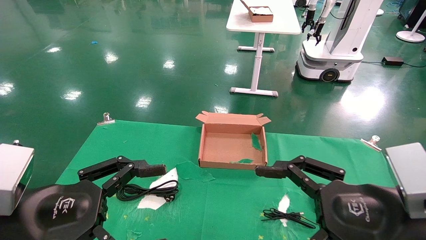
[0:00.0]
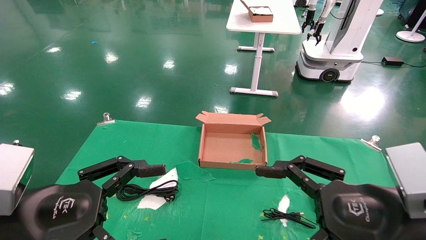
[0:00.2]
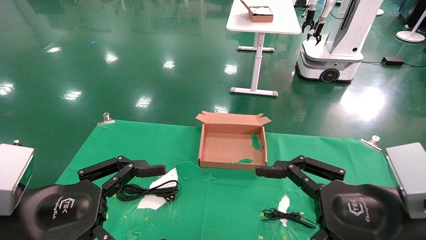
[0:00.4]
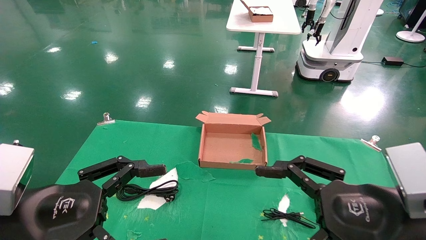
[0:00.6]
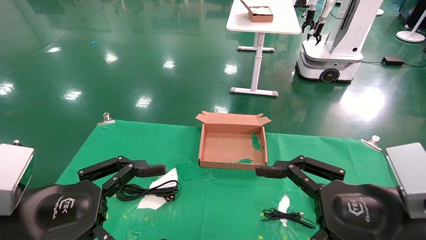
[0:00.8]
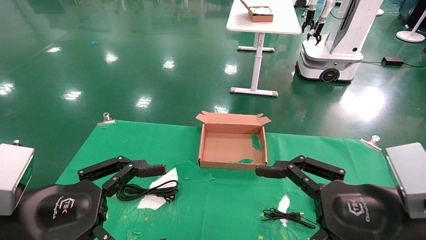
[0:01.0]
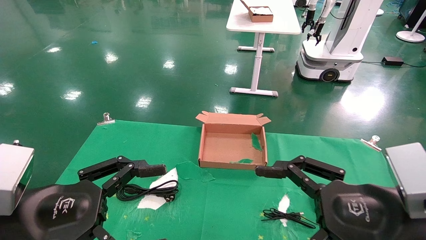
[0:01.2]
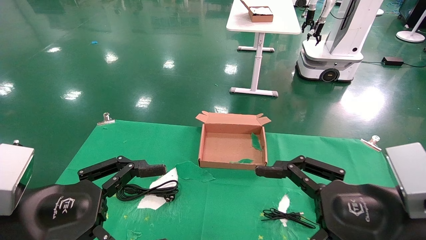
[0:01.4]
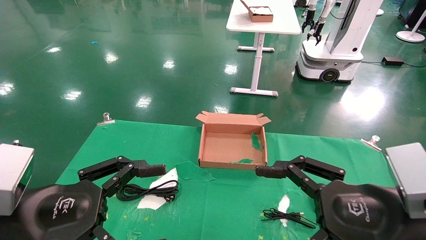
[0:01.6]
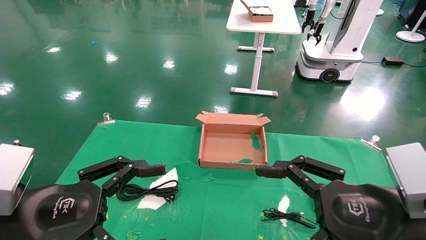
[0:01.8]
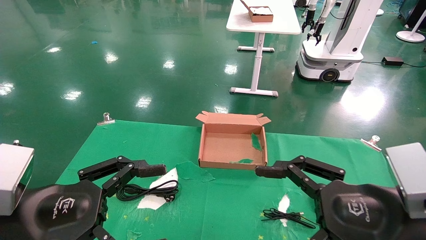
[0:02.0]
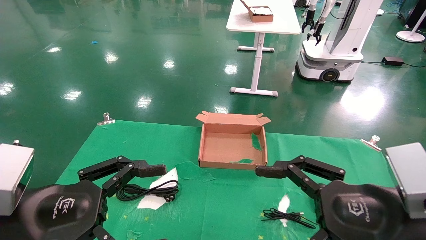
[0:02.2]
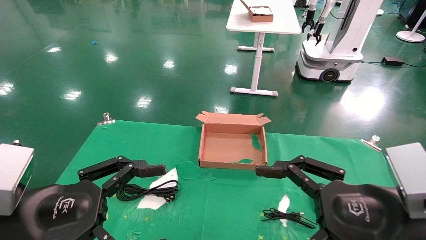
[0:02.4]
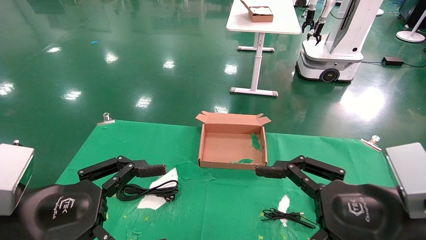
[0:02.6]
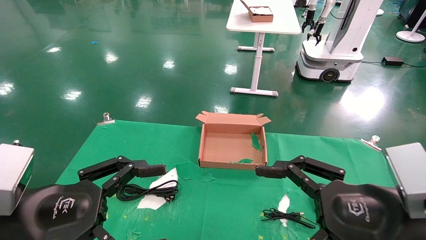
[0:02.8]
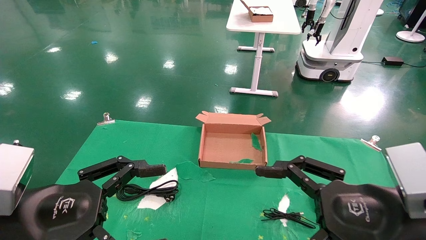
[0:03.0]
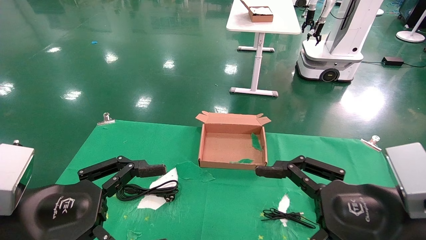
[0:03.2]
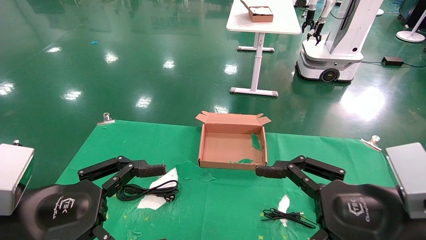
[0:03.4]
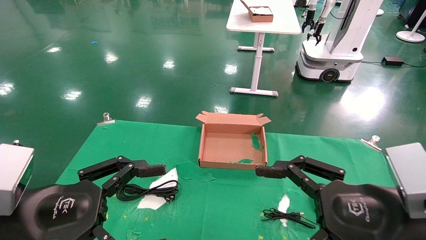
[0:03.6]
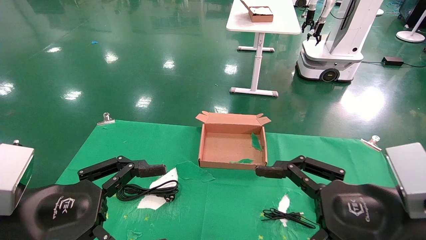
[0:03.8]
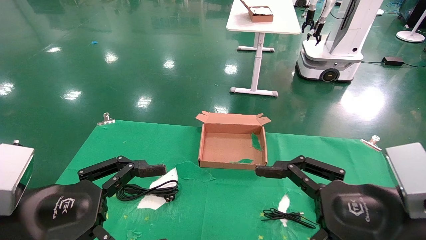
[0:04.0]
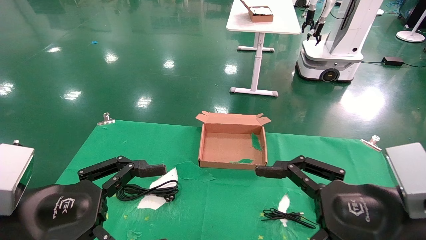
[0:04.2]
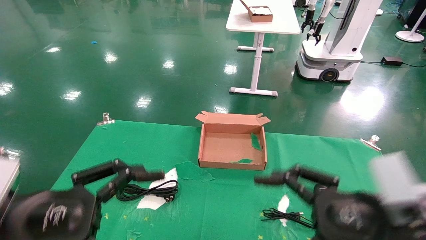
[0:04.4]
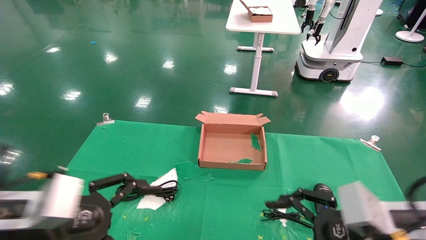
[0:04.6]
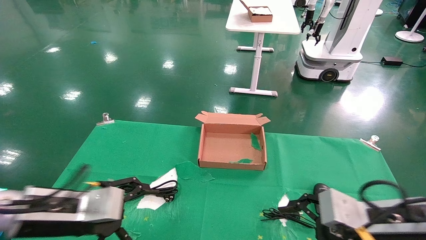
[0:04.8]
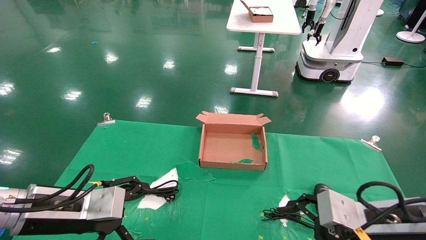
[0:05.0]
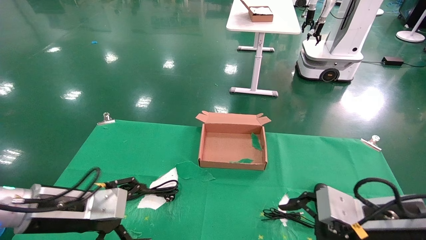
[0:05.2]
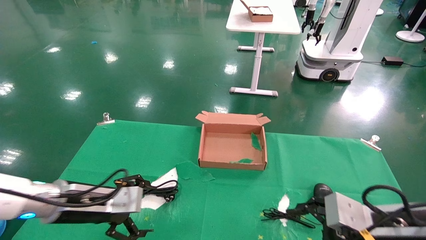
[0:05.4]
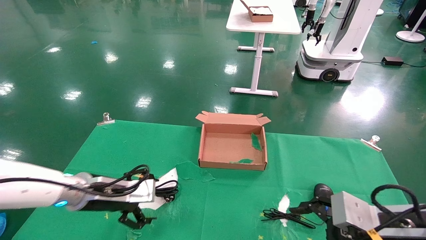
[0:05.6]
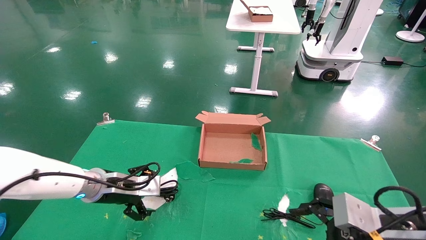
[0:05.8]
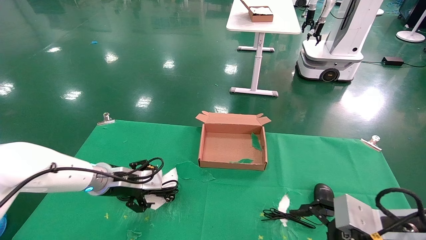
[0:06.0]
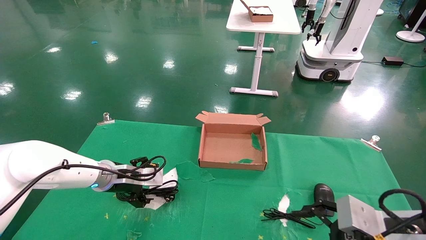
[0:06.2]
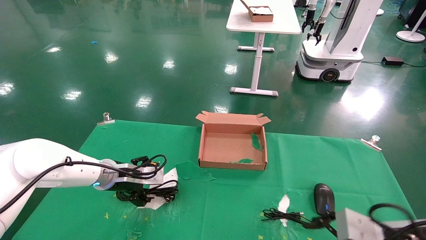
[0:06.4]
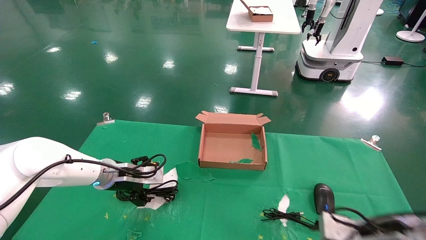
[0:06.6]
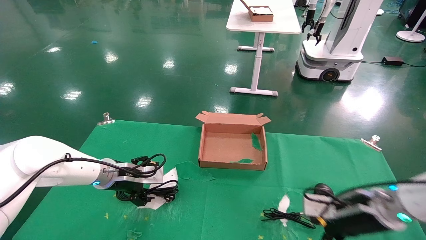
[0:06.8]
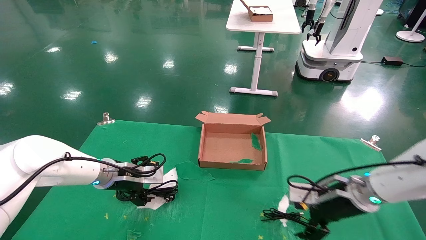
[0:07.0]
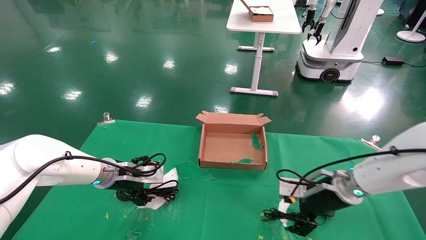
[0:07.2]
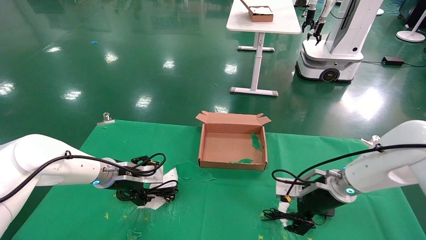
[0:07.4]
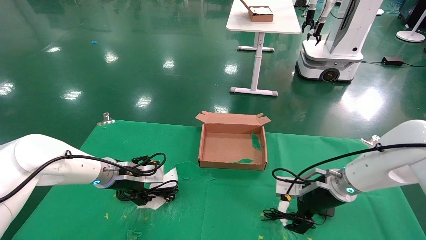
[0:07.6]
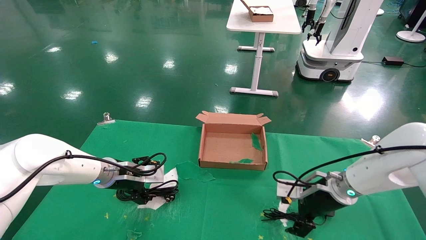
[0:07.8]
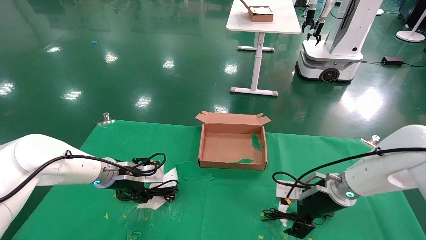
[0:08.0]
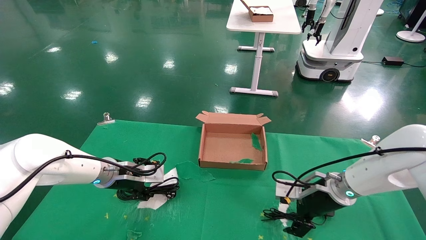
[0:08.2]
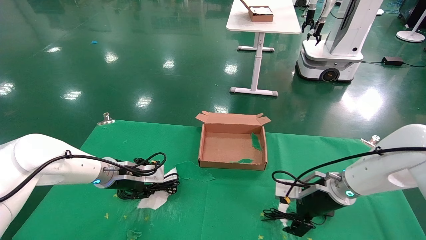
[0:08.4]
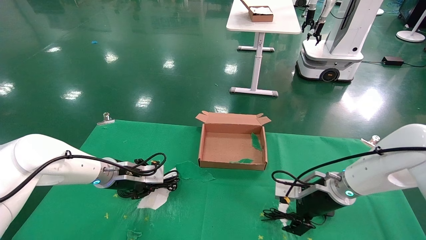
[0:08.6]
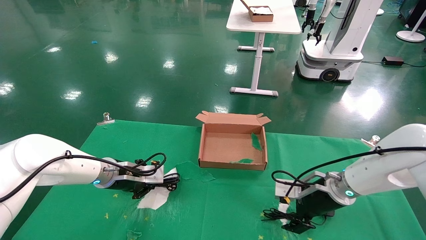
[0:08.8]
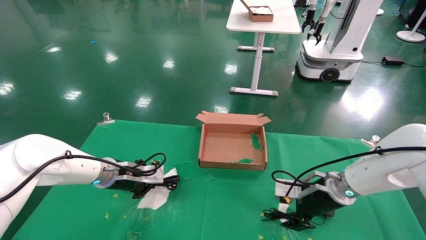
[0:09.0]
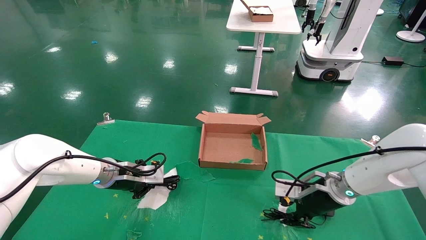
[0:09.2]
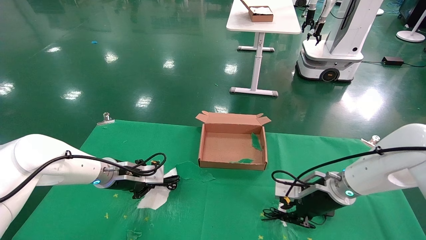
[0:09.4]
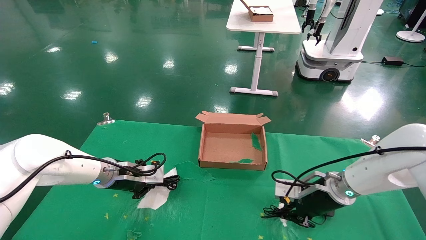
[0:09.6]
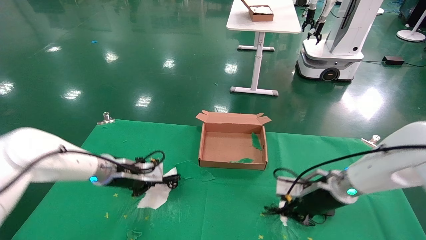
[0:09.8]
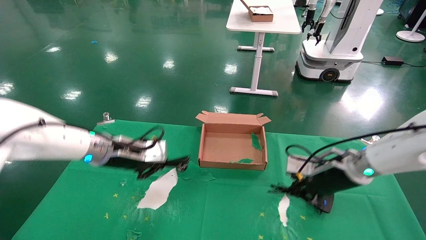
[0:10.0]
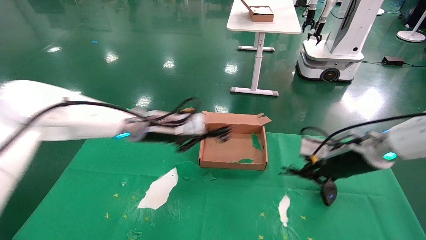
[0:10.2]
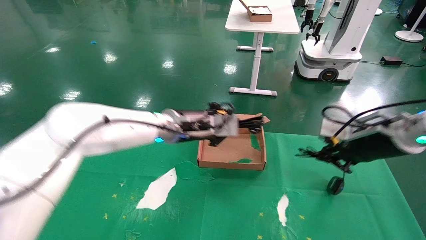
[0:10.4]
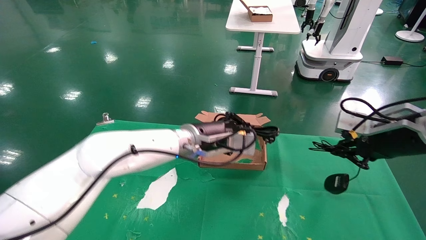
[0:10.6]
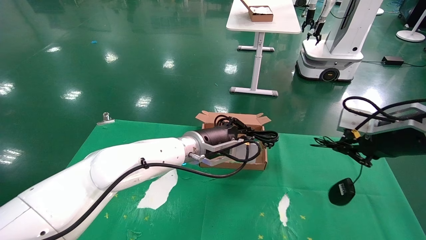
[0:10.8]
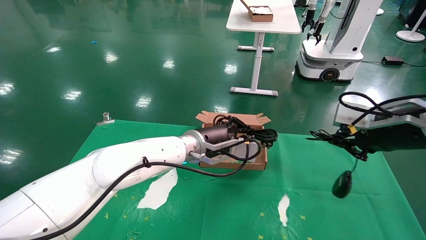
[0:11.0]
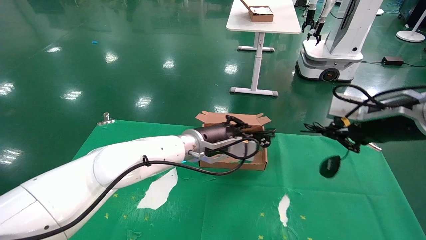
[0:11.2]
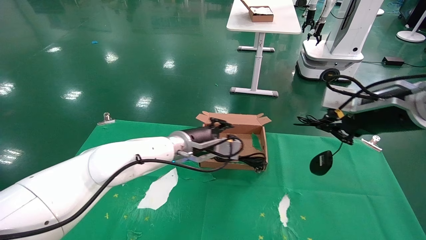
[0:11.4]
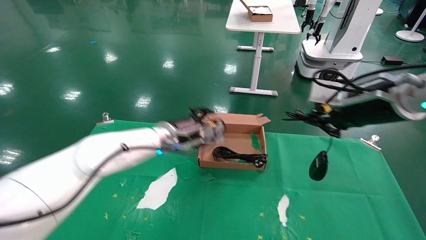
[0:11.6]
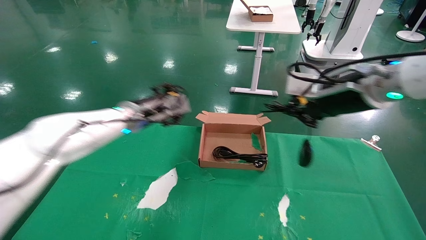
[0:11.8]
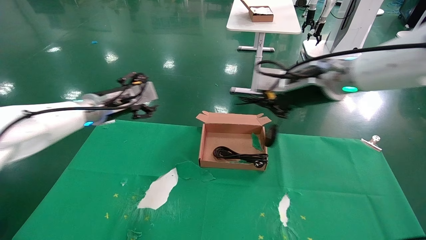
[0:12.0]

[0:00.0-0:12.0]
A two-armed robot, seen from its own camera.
Step, 0:05.0 to 0:08.2: Grab and lift both the mouse and power cord from the accessory packaging area at the same time.
0:00.0 to 0:03.0: The two grippers keep their place.
0:03.0 to 0:04.4: The grippers make only small movements.
0:04.4 to 0:06.0: The right gripper shifts by roughly 5 cm, while the left gripper shifts about 25 cm forward.
0:06.0 to 0:07.6: The right gripper is displaced forward by roughly 20 cm.
0:07.6 to 0:09.0: The left gripper closes.
0:09.0 to 0:10.4: The right gripper travels upward and to the right by approximately 15 cm, and closes up. The left gripper moves to the right and upward, approximately 20 cm.
0:10.4 to 0:12.0: The left gripper heads to the left, covering about 15 cm, and opens its fingers. Meanwhile the right gripper heads to the left and upward, covering about 15 cm.

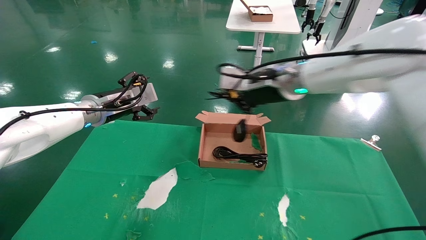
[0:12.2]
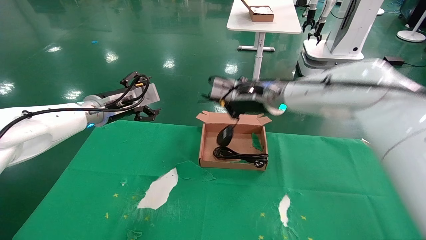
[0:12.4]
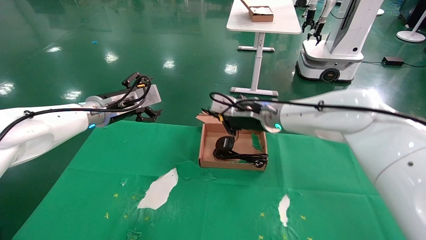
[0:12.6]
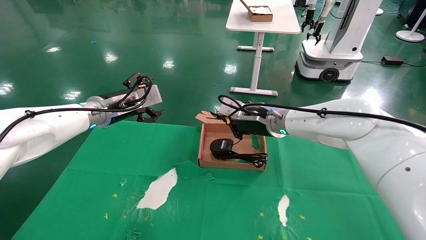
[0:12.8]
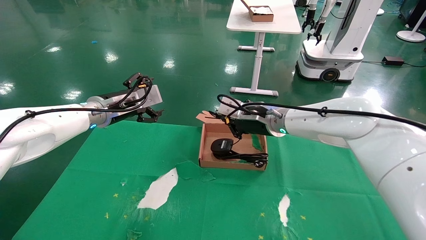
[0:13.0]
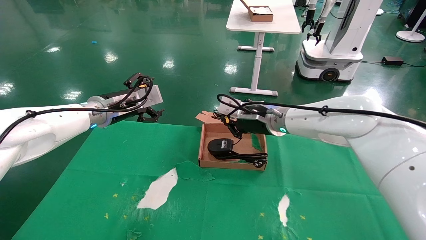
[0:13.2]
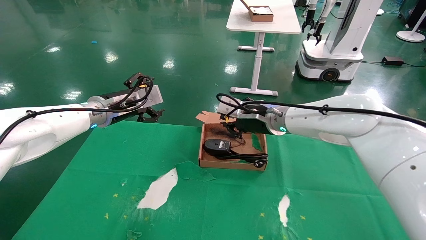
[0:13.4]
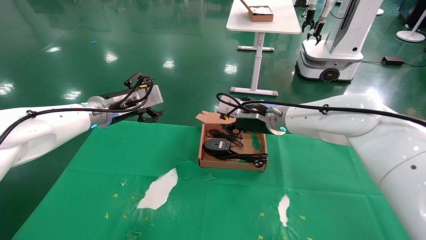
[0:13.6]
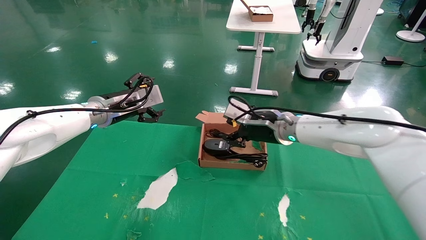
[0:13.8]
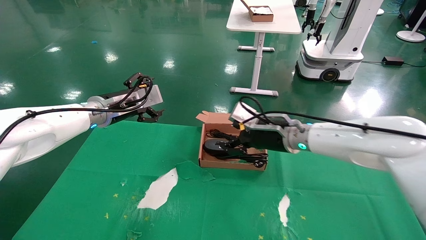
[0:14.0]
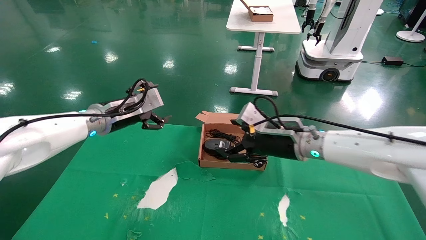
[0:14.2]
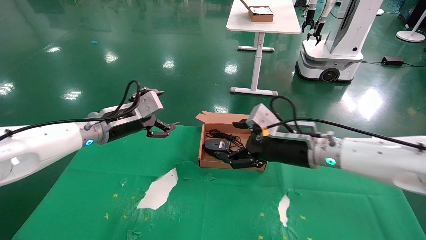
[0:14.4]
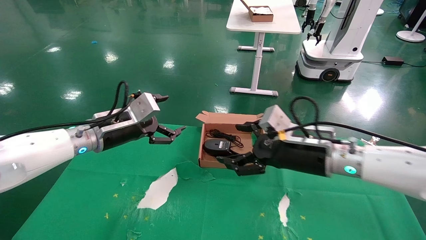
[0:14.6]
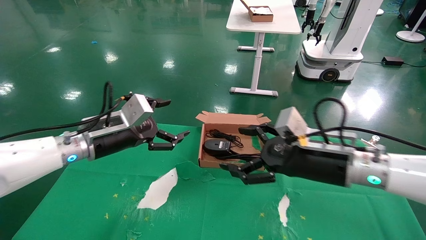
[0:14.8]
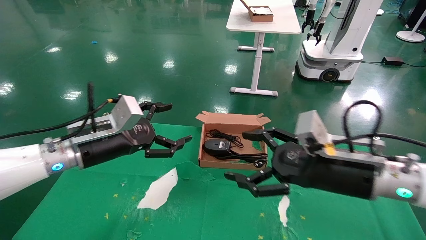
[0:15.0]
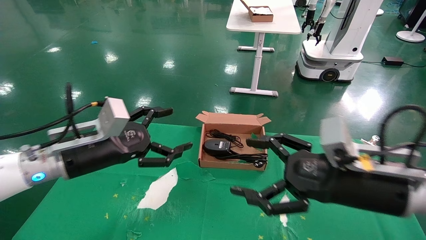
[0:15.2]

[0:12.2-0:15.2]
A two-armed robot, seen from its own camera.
0:12.2 to 0:13.8: The right gripper is displaced downward by about 10 cm, and opens up.
0:13.8 to 0:15.2: The right gripper moves backward and to the right, about 20 cm, and opens; the left gripper moves backward and downward, some 15 cm.
